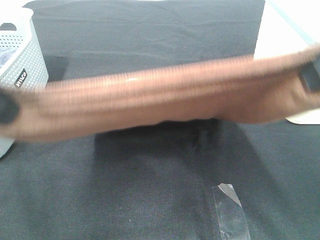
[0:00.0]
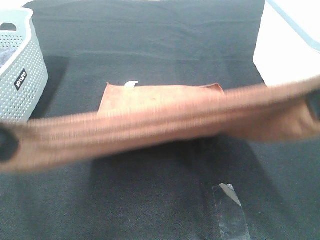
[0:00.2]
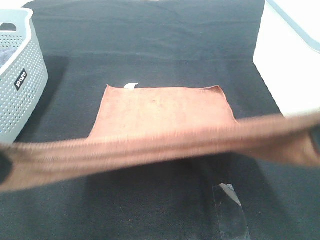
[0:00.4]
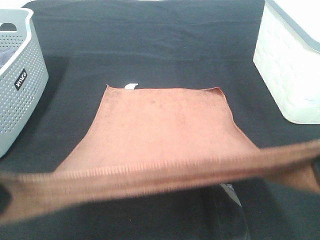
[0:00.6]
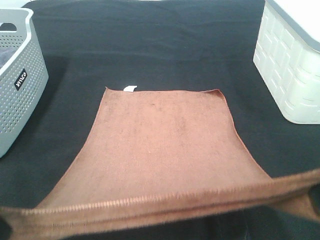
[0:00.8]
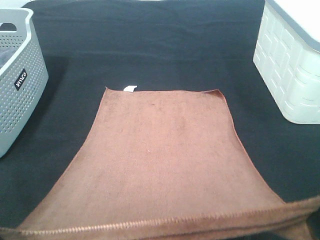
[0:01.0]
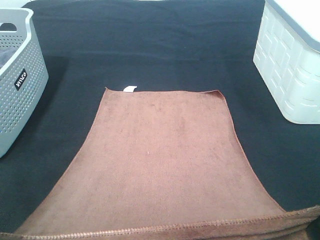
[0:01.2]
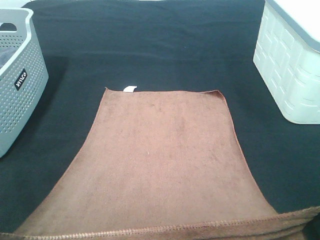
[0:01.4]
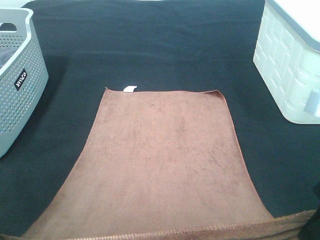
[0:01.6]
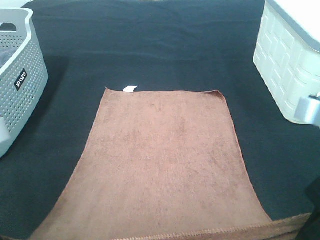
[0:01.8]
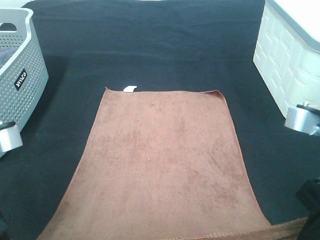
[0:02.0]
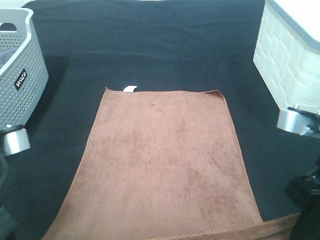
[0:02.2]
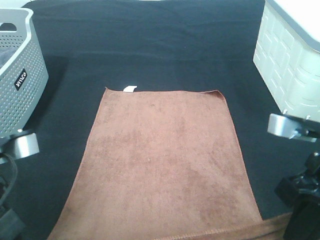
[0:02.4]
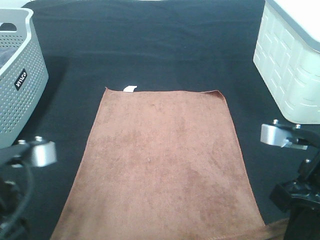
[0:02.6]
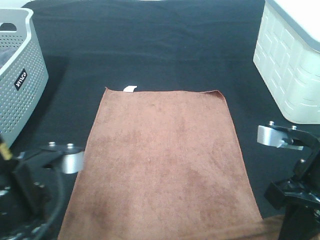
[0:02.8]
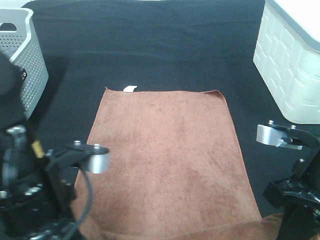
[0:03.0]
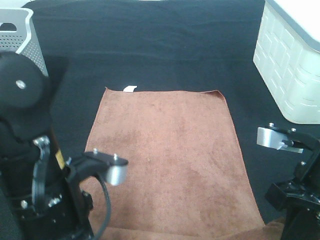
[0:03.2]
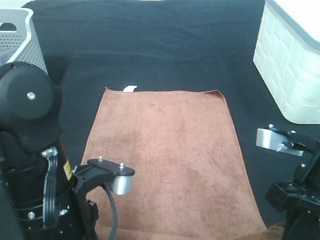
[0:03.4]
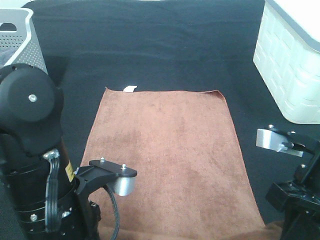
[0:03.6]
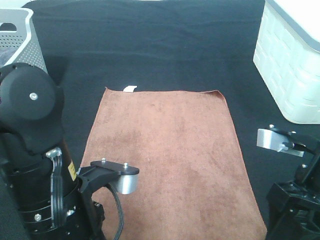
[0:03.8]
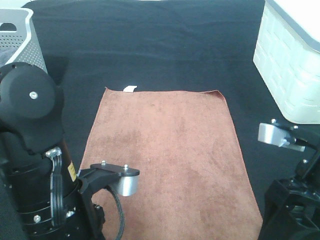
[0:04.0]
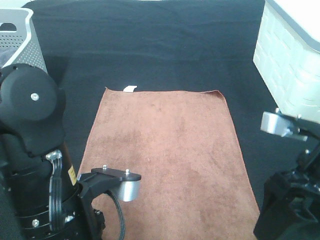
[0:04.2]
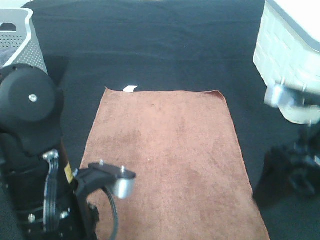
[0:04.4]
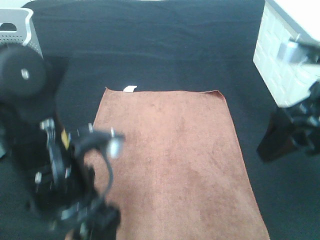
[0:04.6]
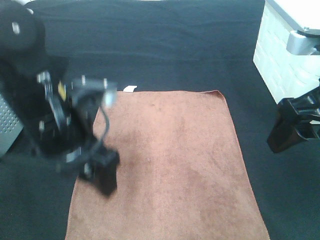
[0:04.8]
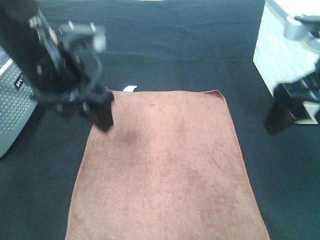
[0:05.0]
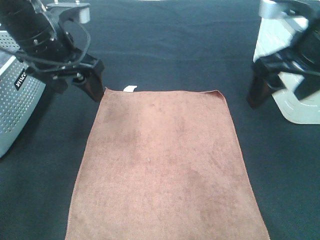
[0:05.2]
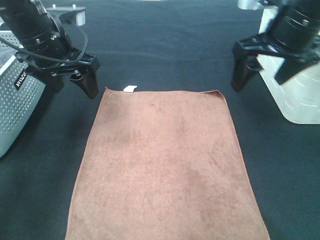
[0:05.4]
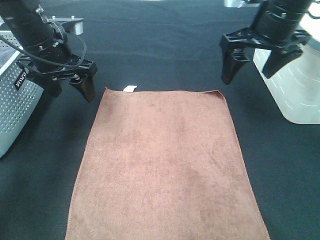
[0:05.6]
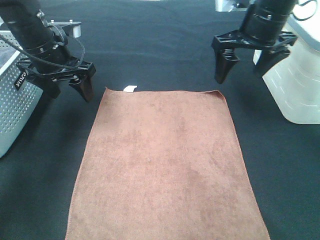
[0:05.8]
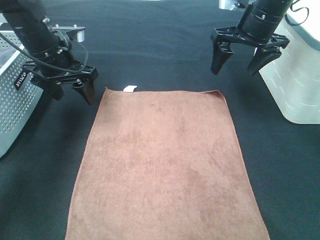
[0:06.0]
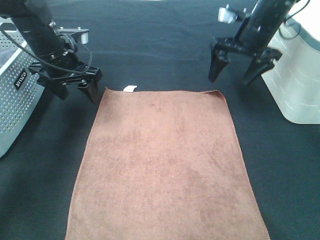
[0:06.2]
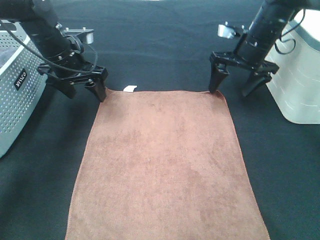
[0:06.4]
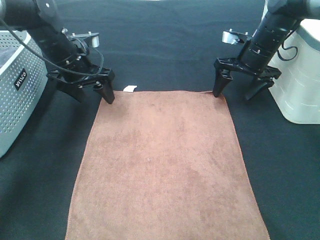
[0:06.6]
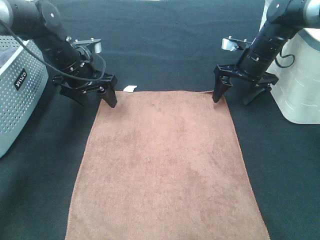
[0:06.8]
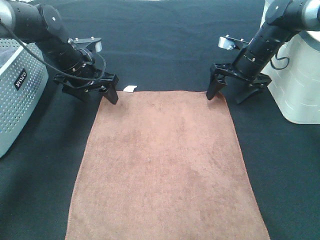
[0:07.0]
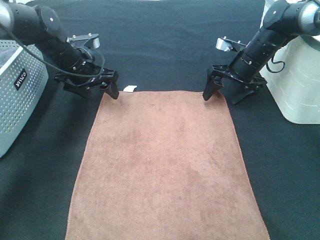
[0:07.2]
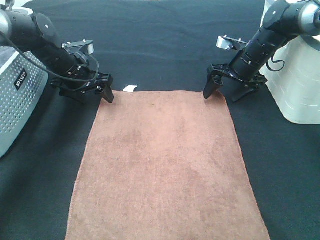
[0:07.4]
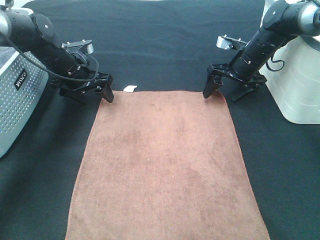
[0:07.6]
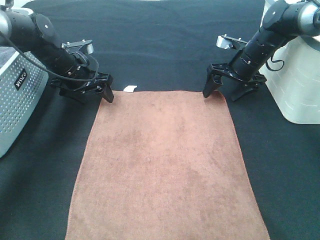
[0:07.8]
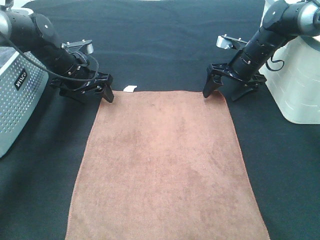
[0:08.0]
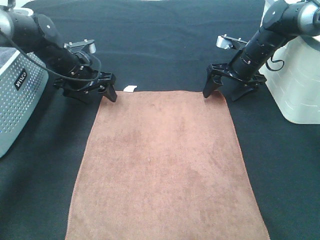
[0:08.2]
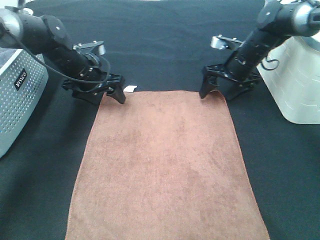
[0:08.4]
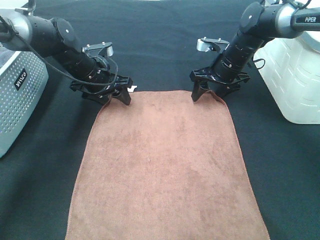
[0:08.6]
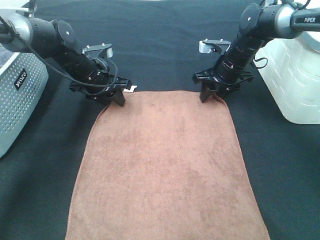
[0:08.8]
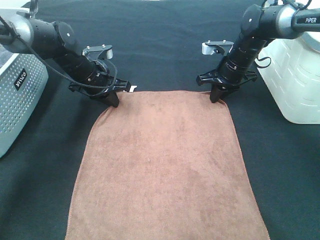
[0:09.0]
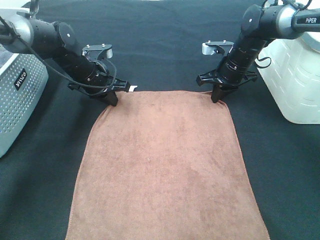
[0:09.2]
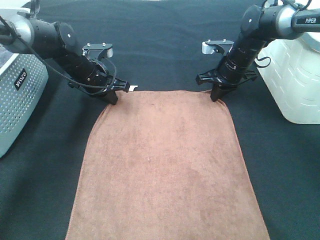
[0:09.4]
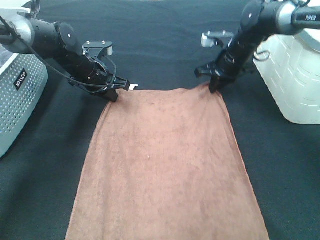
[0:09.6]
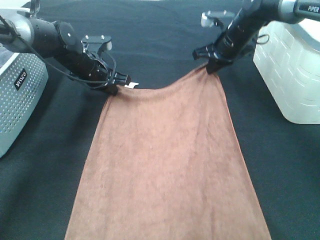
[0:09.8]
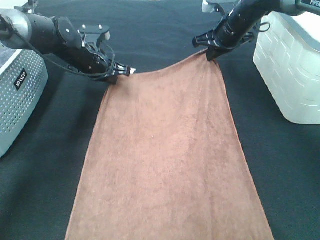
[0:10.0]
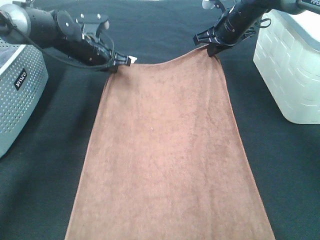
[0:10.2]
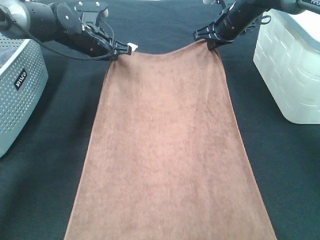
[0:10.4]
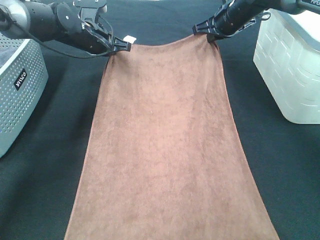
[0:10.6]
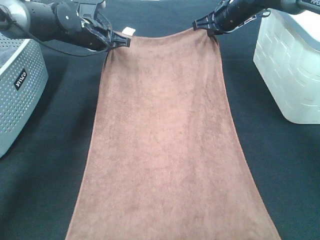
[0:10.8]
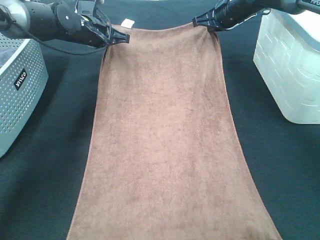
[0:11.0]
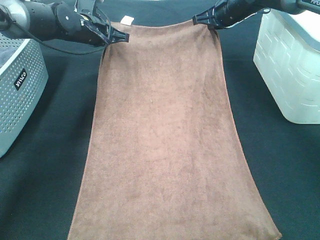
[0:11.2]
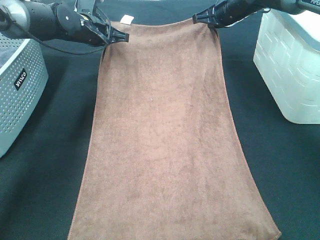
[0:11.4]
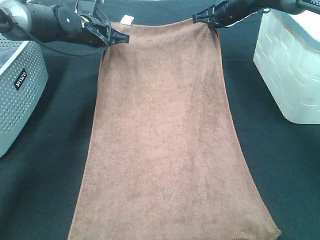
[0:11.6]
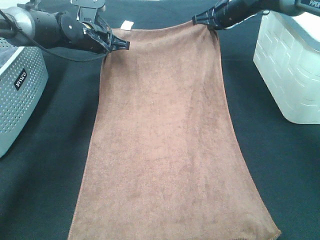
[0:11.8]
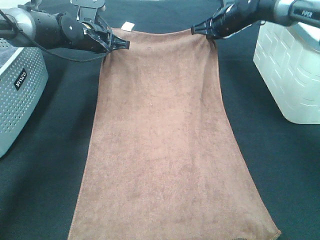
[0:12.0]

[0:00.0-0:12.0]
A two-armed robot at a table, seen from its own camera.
Task of the whole recording: Remove the towel and place it.
Step, 0:00.0 to 0:07.6: Left hand:adjust the brown towel.
Step, 0:00.0 to 0:07.6: Right hand:adjust the brown towel.
0:00.0 to 0:01.6: Both grippers travel together downward, approximately 10 cm.
0:01.6 to 0:03.0: The left gripper is displaced to the right and downward by some 10 cm. The right gripper shifts roughly 5 cm downward.
0:03.0 to 0:04.4: The left gripper opens. The right gripper shifts some 5 cm upward, and opens its fingers.
0:04.4 to 0:06.0: The grippers both shift forward by roughly 25 cm.
0:06.0 to 0:07.6: The left gripper is displaced downward and forward by approximately 10 cm; the right gripper goes approximately 10 cm downward.
0:07.6 to 0:09.0: The right gripper closes its fingers. Meanwhile the left gripper closes its fingers.
0:09.0 to 0:10.4: The left gripper goes some 5 cm upward; the right gripper heads upward and forward, covering approximately 10 cm.
0:10.4 to 0:12.0: There are only small adjustments of the grippers.

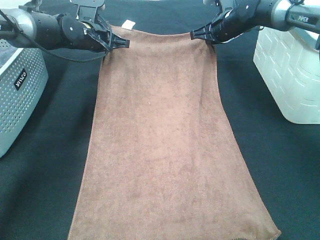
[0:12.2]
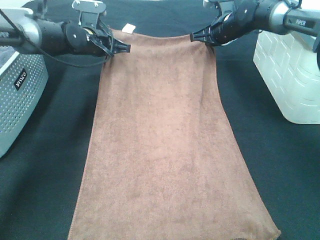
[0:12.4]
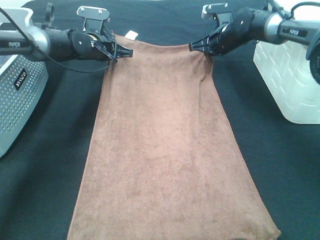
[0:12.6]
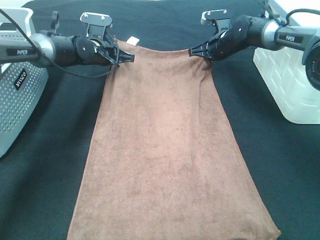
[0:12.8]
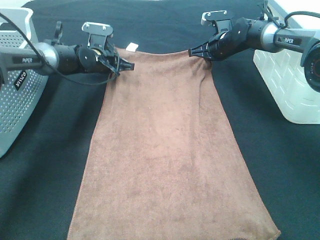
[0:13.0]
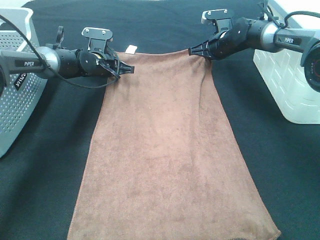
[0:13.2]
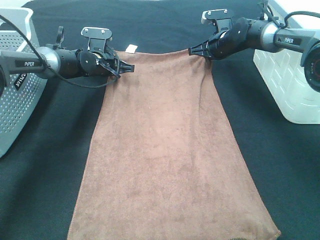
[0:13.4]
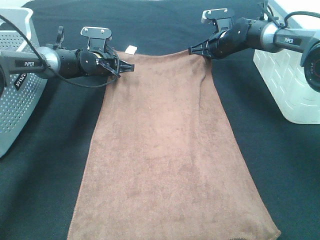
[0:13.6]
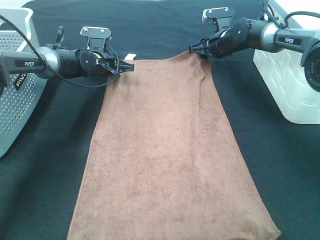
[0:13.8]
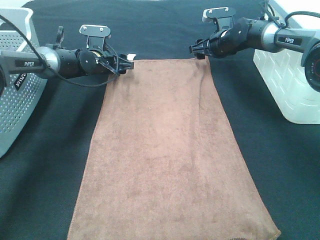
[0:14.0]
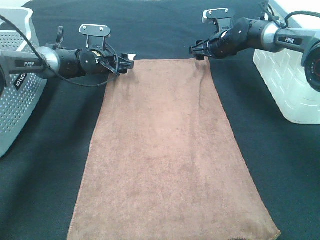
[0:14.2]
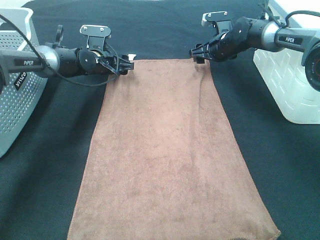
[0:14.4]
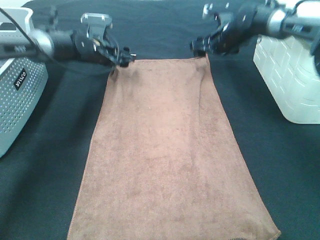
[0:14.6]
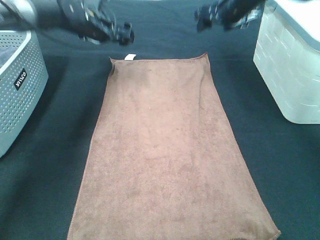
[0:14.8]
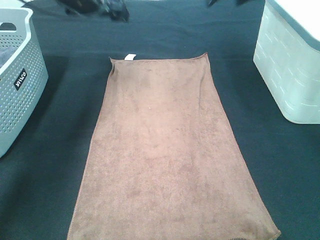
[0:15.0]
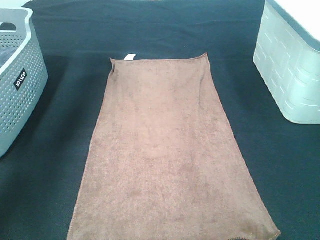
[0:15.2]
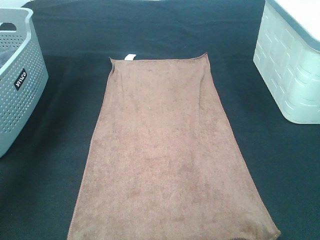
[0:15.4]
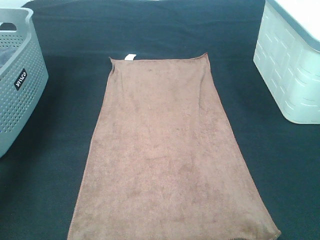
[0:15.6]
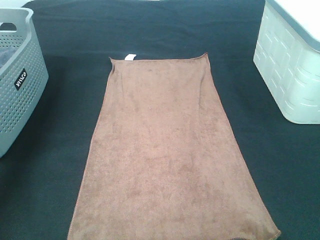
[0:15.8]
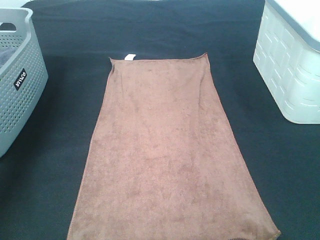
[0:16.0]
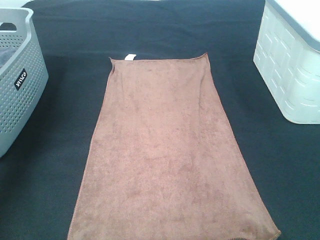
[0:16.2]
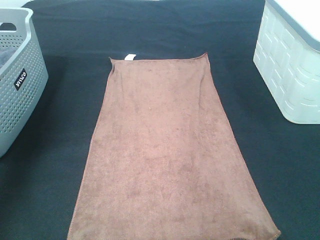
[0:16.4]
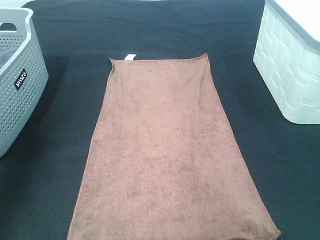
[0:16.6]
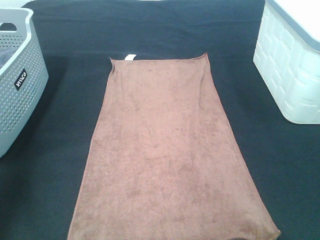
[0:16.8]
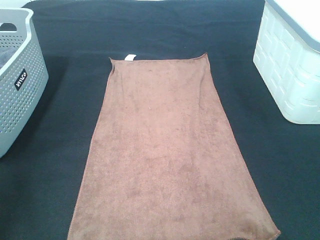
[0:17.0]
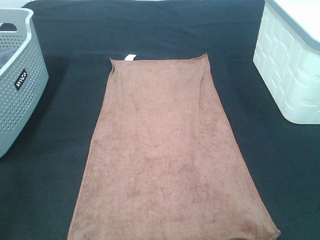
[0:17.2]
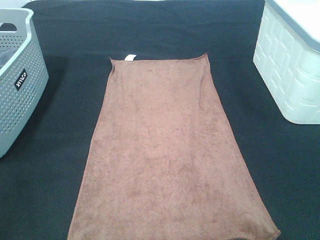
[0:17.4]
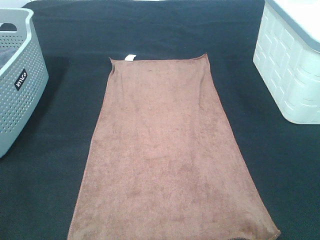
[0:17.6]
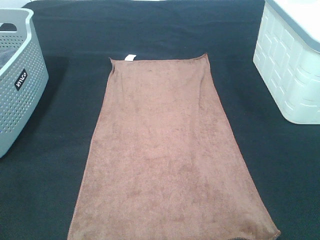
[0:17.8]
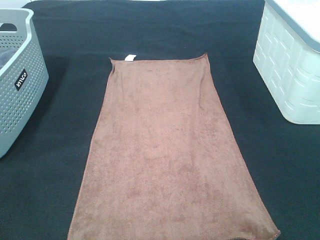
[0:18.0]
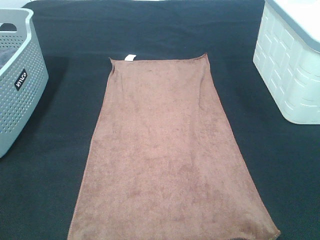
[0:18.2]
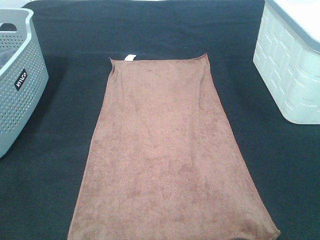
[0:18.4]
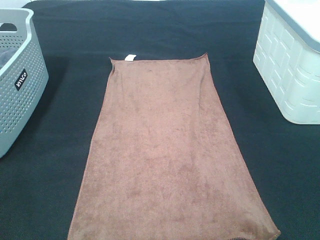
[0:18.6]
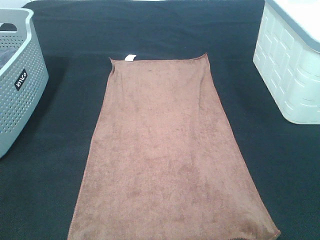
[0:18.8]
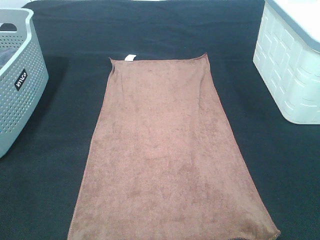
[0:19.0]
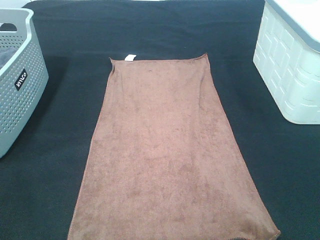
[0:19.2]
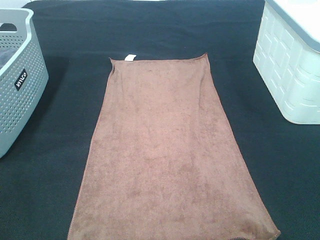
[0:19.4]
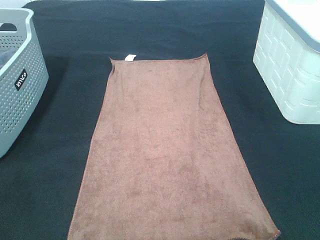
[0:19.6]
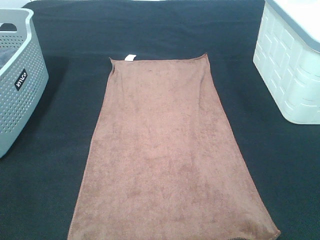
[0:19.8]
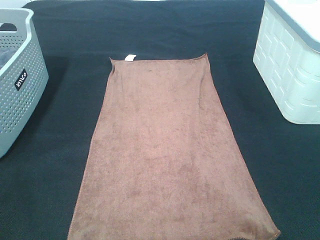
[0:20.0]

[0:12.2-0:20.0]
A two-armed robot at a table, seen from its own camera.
Task of the whole recording: Remove the towel and place it.
0:12.2 to 0:13.8: The right gripper moves about 5 cm, and opens its fingers. The left gripper shifts some 10 cm downward, and opens.
0:13.8 to 0:15.4: The left gripper travels upward and to the left by about 30 cm, and opens its fingers. Meanwhile the right gripper moves upward and backward, about 35 cm.
0:15.4 to 0:16.8: The two grippers go roughly 30 cm backward.
0:18.4 to 0:20.0: Neither gripper changes place.

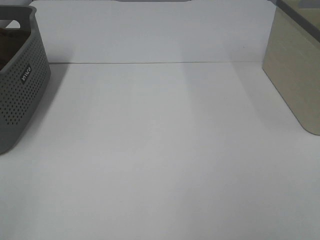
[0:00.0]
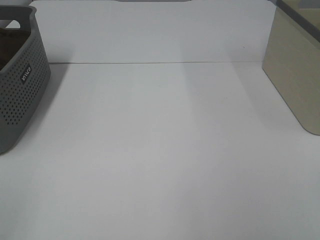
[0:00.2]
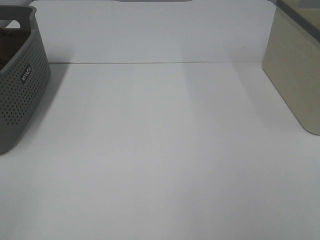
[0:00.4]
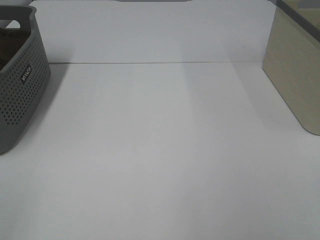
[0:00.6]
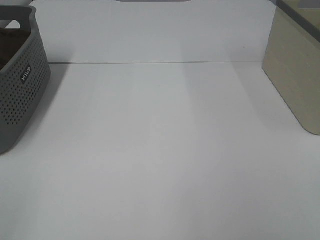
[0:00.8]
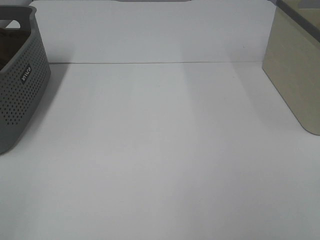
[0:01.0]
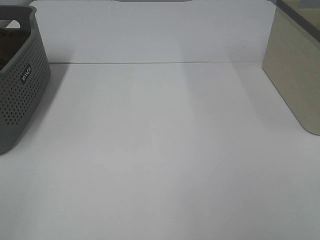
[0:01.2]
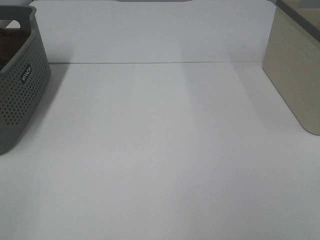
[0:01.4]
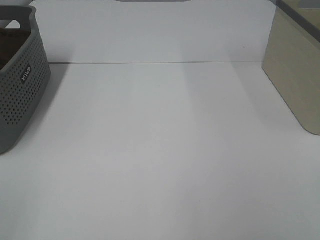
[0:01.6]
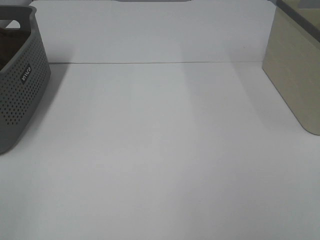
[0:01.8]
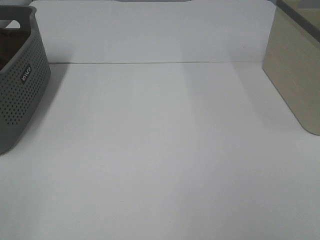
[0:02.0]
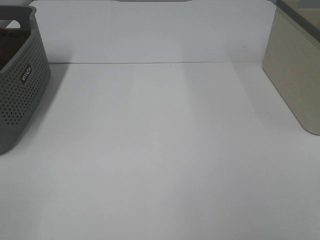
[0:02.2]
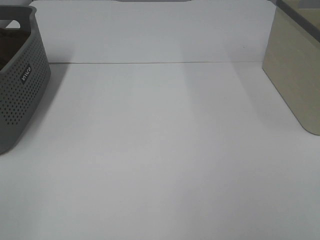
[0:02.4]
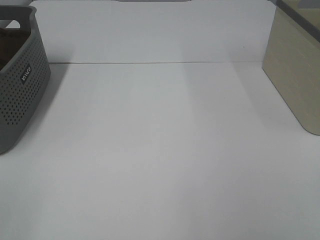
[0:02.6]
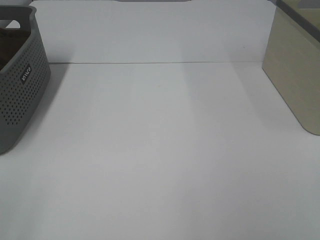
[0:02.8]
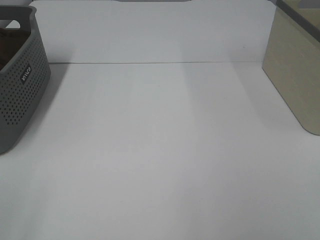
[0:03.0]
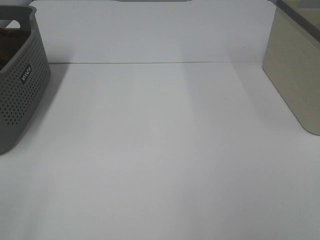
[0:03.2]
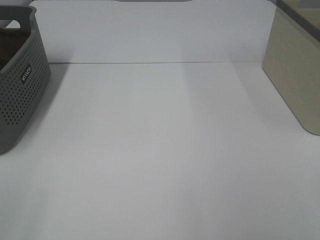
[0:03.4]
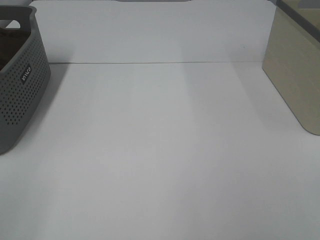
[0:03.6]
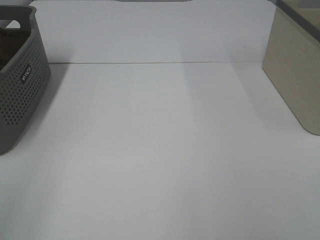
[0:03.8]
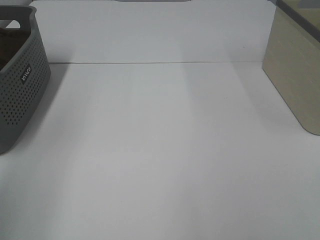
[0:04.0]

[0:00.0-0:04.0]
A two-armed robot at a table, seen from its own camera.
Task of the whole recording: Remove the towel and place it.
0:00.0 to 0:02.6: Neither gripper changes place.
0:02.6 to 0:04.0: The left gripper moves upward and forward, about 15 cm.
